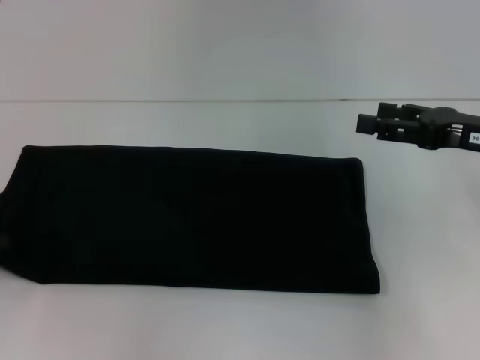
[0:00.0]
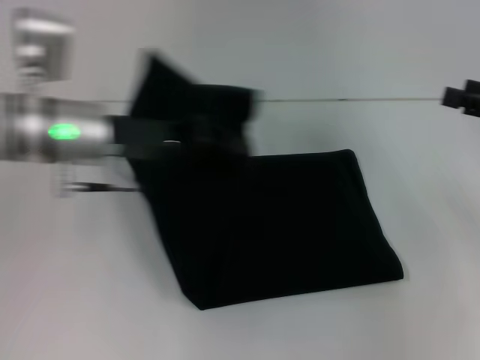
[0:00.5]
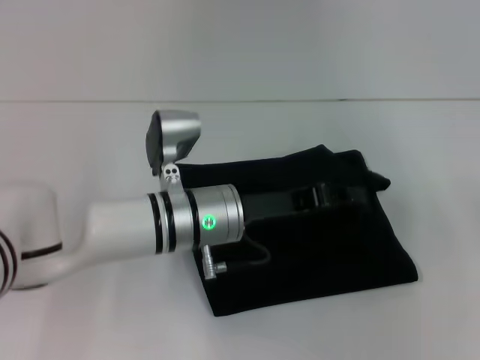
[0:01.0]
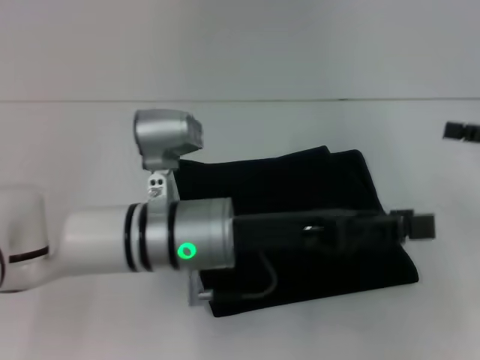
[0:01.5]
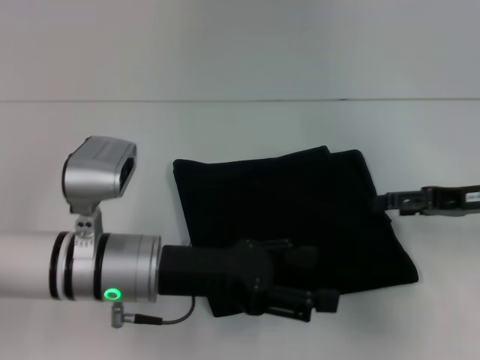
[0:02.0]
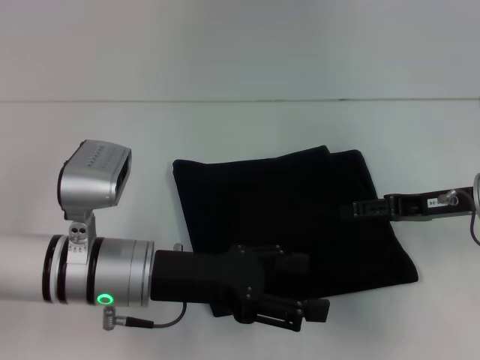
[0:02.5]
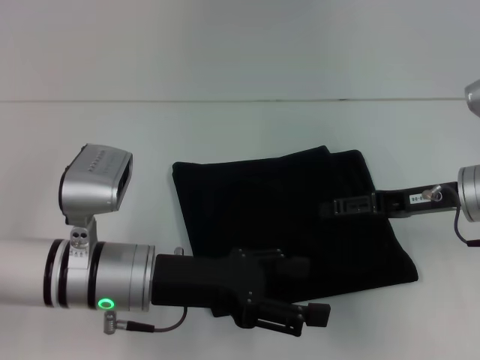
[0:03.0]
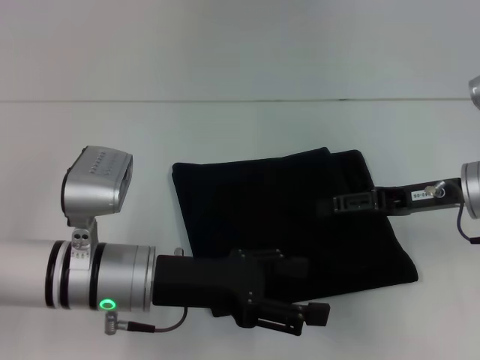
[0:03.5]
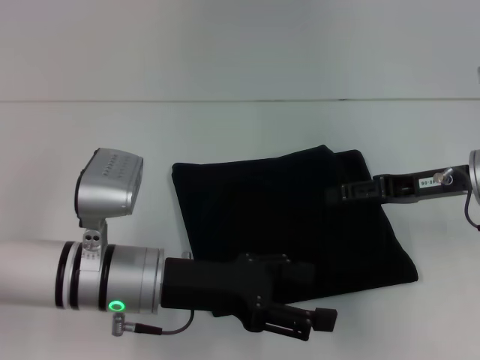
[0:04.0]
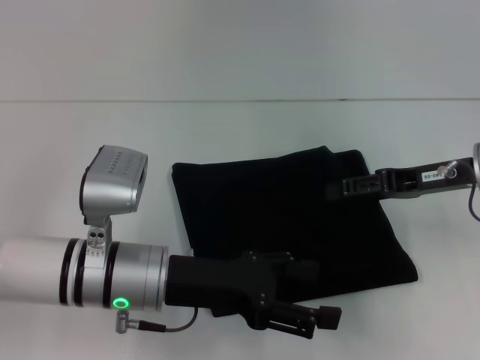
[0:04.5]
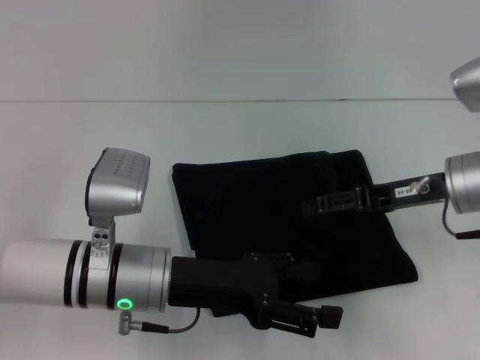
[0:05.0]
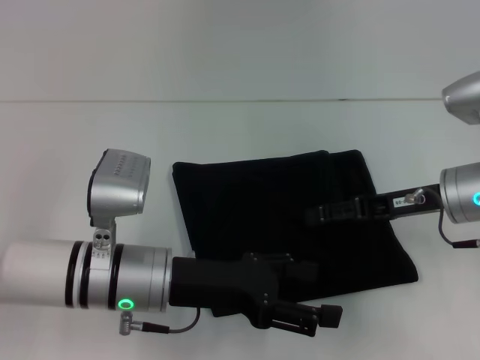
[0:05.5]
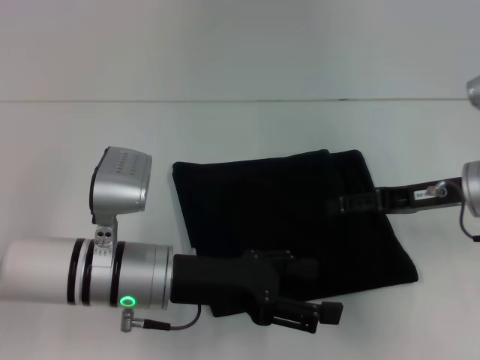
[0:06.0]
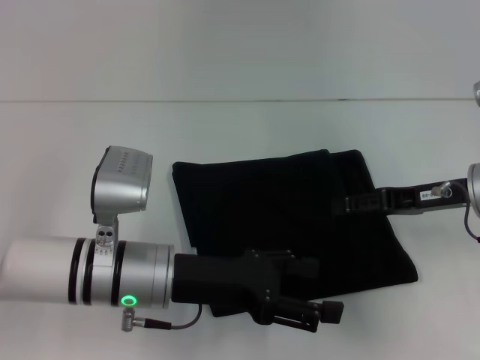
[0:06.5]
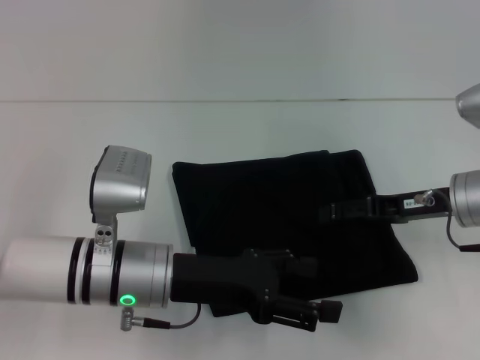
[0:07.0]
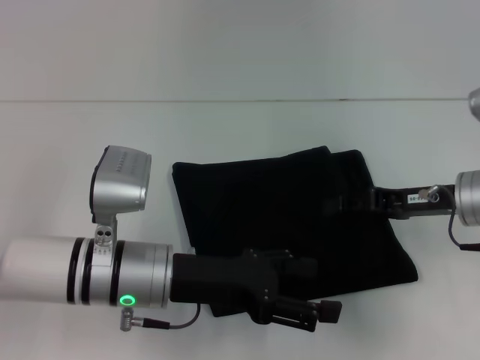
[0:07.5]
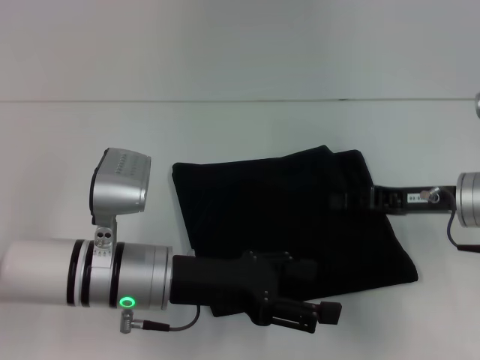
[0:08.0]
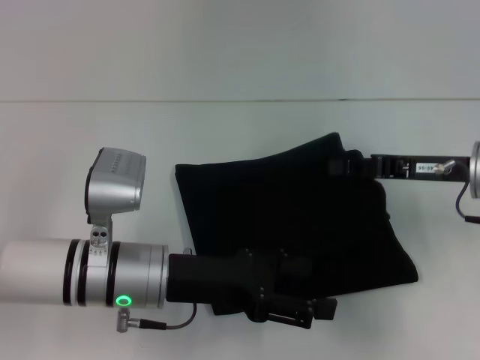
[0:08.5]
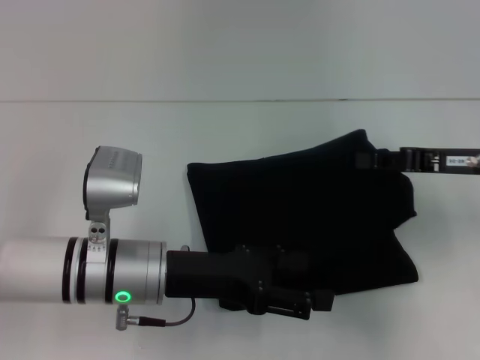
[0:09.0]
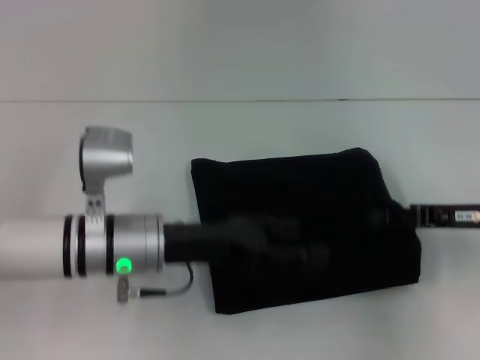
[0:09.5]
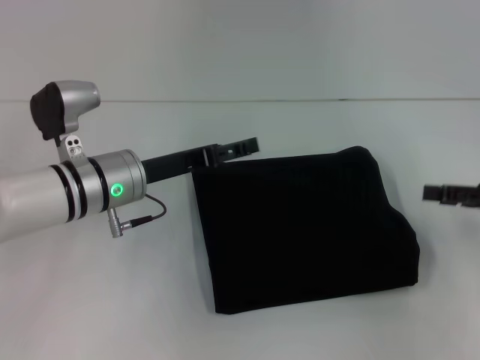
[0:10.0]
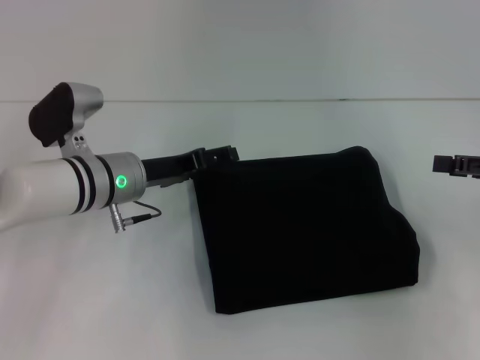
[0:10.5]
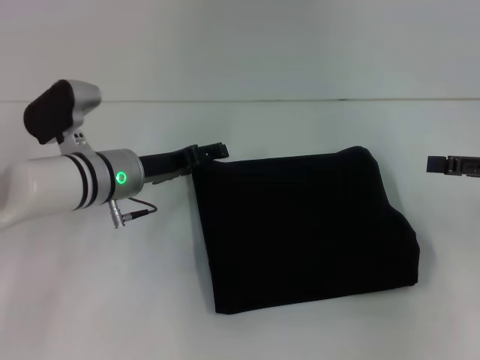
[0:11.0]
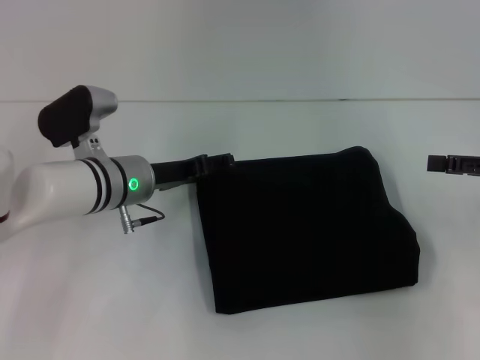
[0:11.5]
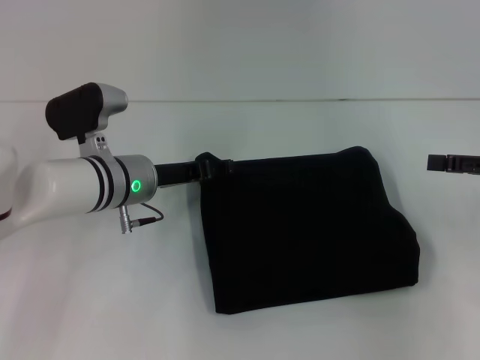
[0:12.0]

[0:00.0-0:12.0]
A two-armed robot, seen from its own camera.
0:00.0 to 0:02.0: The right gripper reaches some 10 cm to the right, then returns. Meanwhile the left gripper heads to the right, covering roughly 25 cm, and opens up.
0:02.0 to 0:04.0: The right gripper shifts by about 5 cm.
0:04.0 to 0:06.0: There are only small adjustments of the grippers.
0:06.0 to 0:08.0: The right gripper closes its fingers.
0:08.0 to 0:10.0: The right gripper goes some 10 cm to the right; the left gripper heads forward, covering roughly 10 cm.
0:10.0 to 0:12.0: The right gripper opens its fingers.

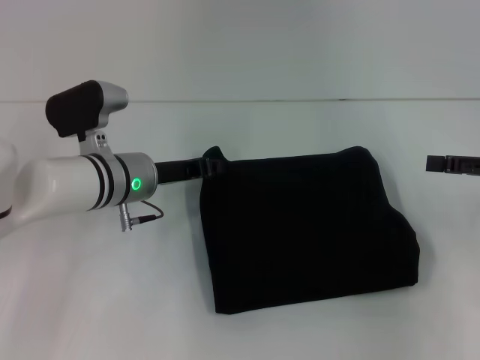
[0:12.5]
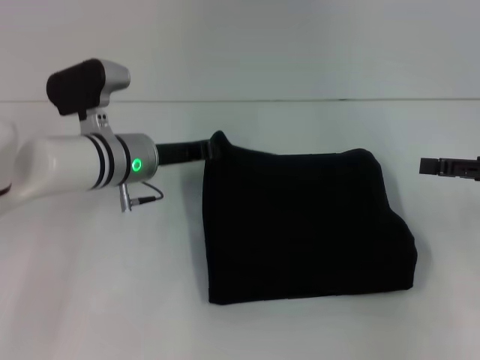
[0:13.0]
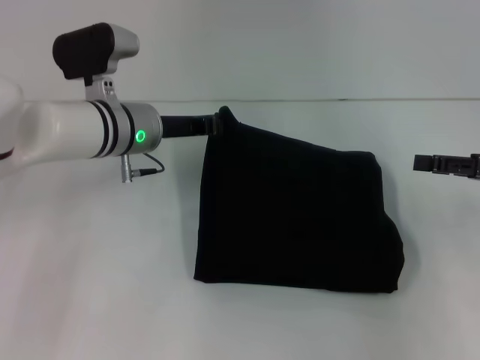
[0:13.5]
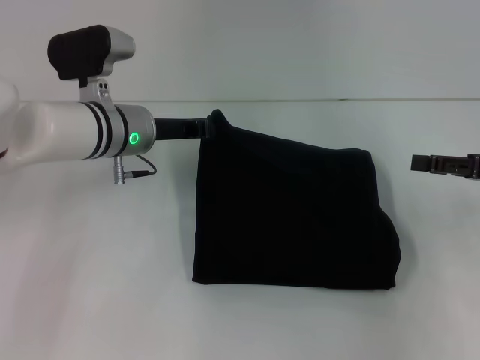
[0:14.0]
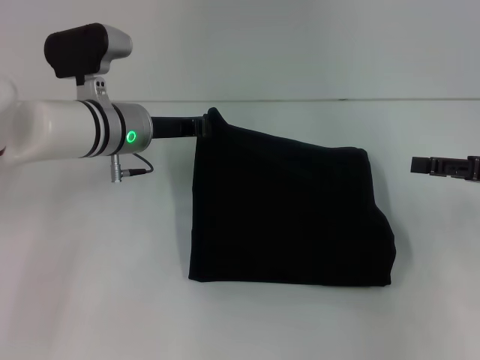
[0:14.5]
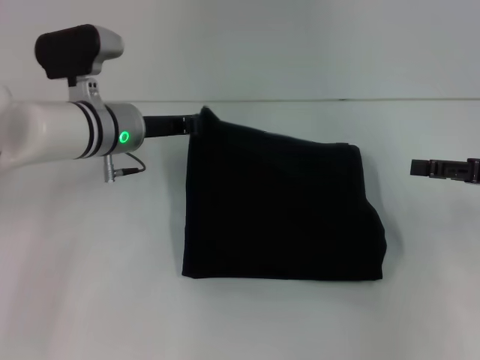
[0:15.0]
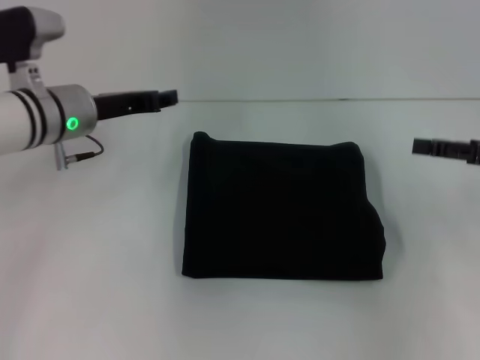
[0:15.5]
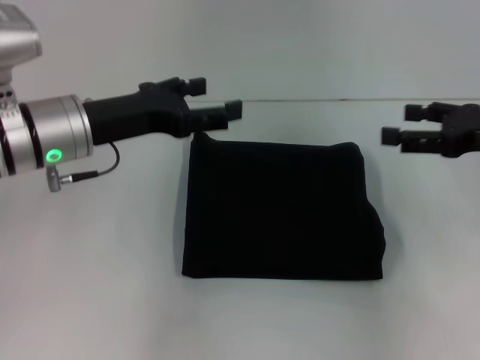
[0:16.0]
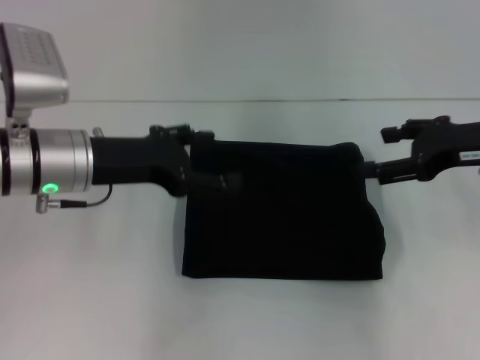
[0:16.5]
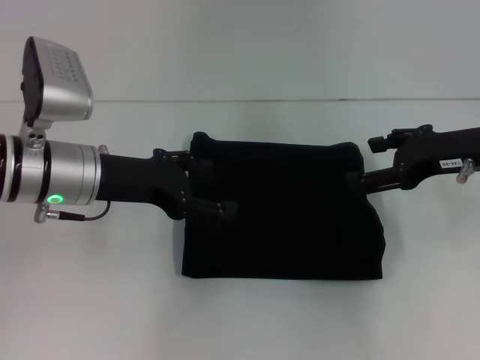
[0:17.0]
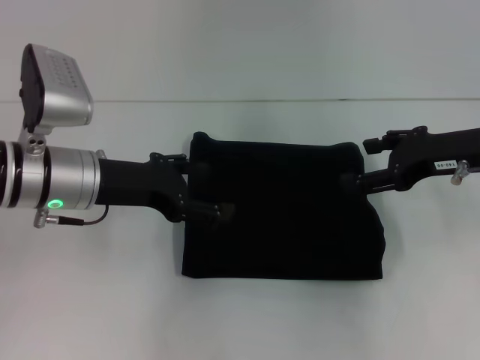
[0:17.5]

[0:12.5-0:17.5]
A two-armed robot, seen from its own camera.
0:12.5 to 0:15.0: The left gripper moves about 5 cm, and closes.
0:15.0 to 0:17.5: The left gripper is displaced backward by about 10 cm, and opens. Meanwhile the right gripper shifts roughly 10 cm to the left.

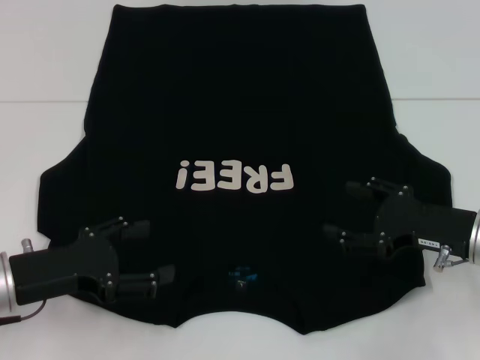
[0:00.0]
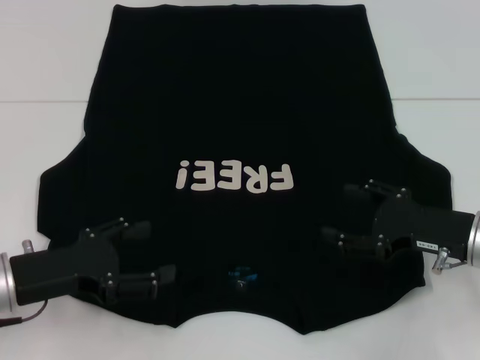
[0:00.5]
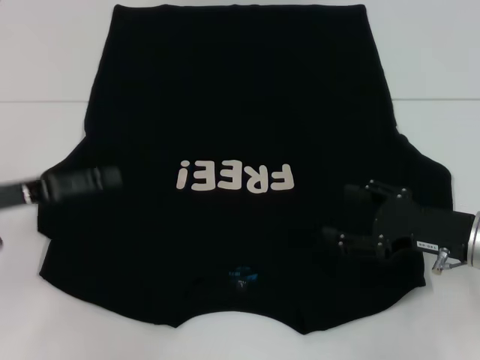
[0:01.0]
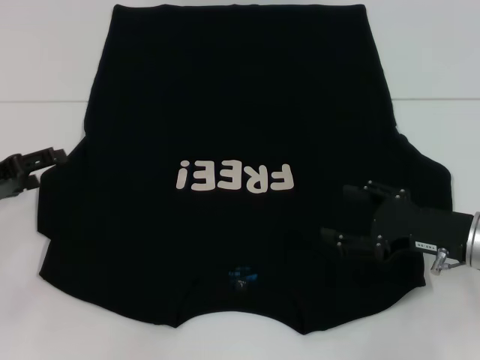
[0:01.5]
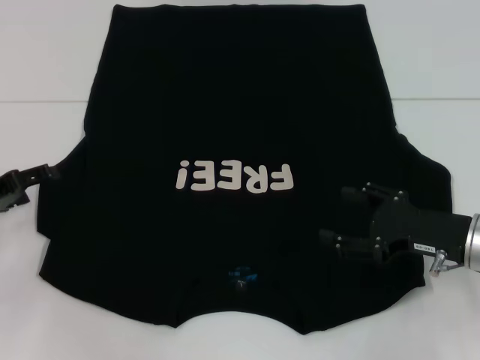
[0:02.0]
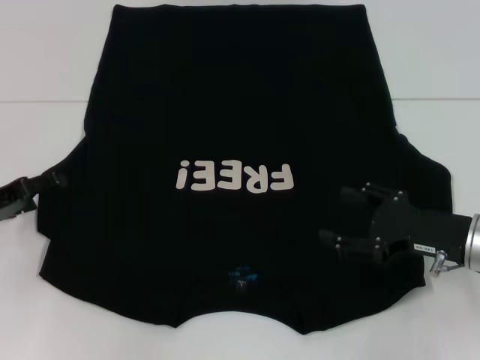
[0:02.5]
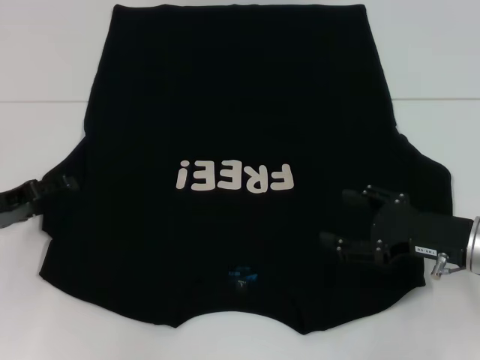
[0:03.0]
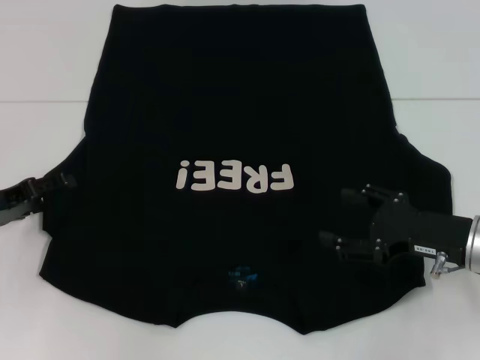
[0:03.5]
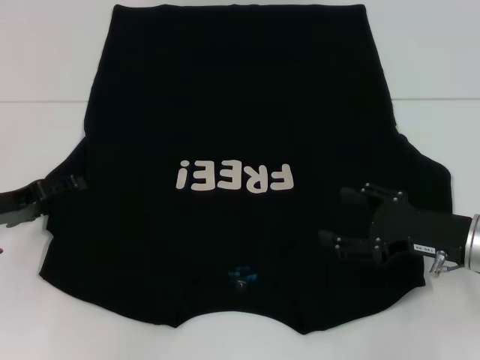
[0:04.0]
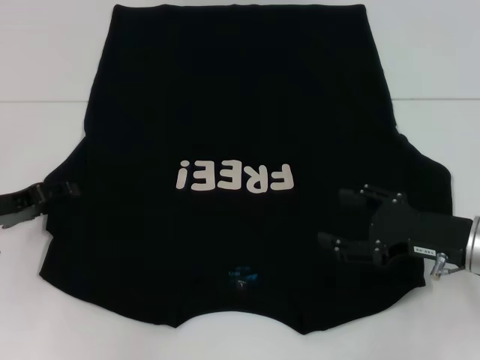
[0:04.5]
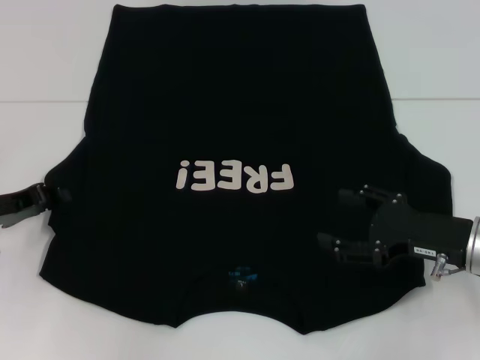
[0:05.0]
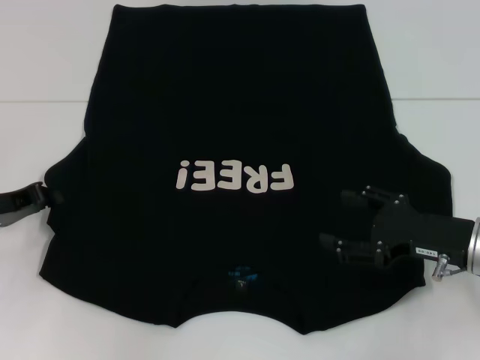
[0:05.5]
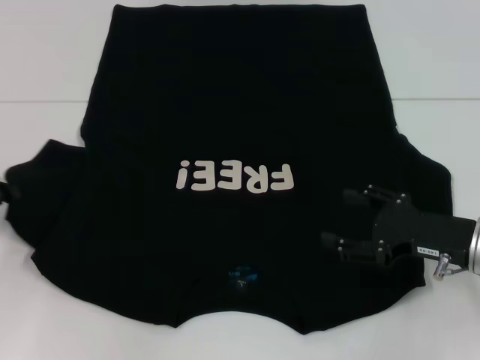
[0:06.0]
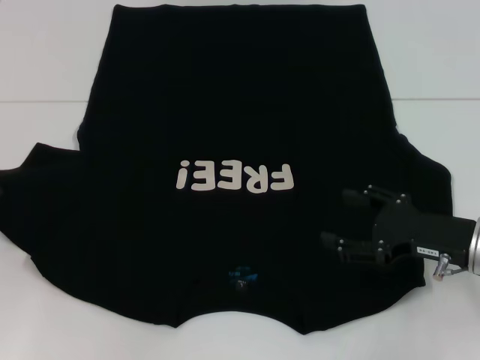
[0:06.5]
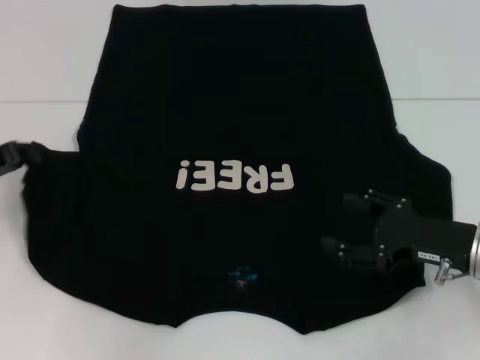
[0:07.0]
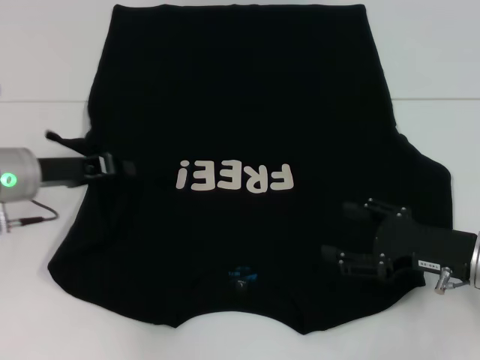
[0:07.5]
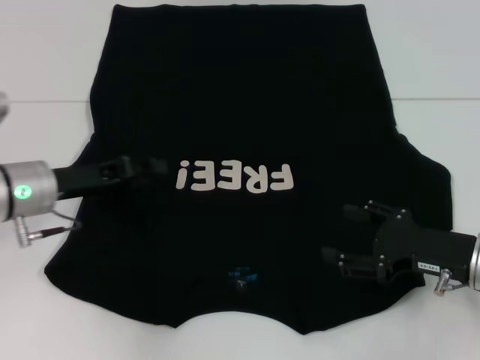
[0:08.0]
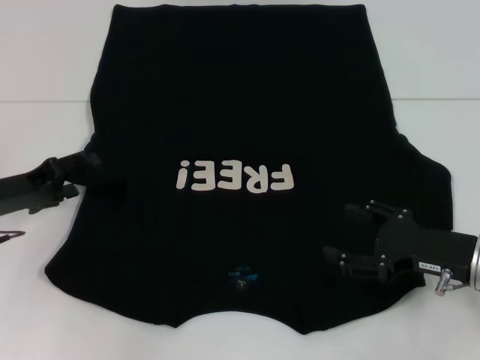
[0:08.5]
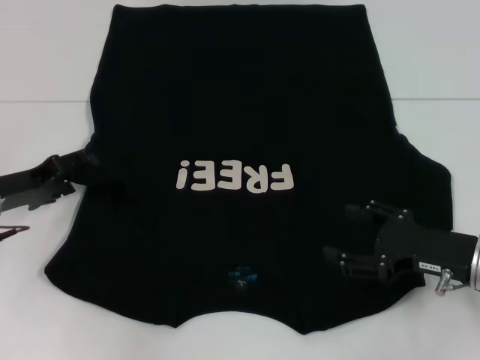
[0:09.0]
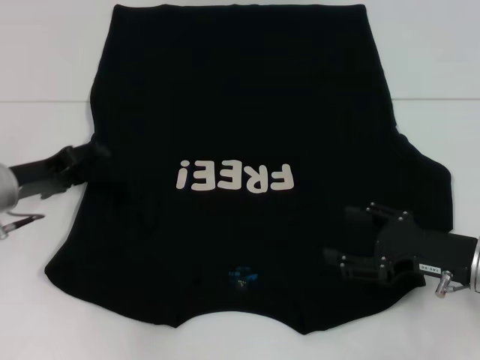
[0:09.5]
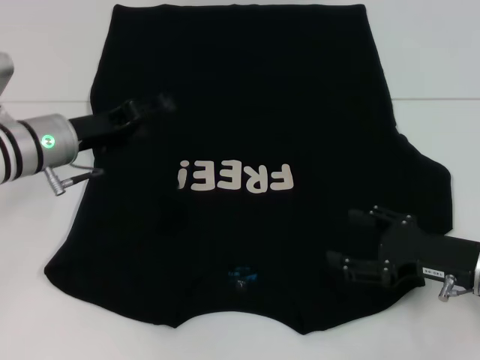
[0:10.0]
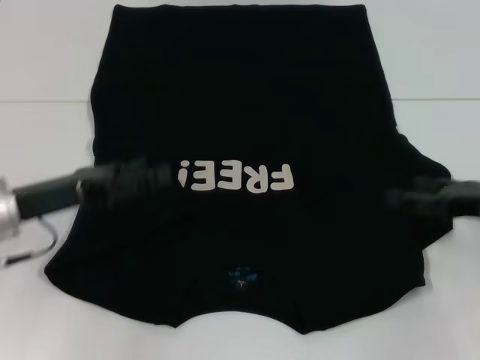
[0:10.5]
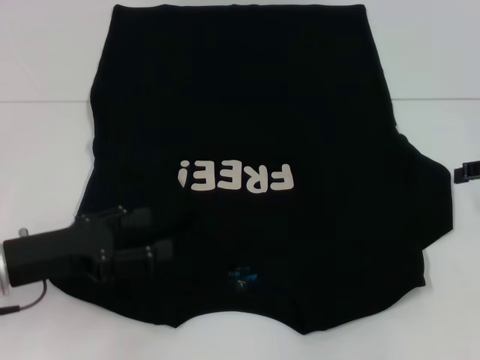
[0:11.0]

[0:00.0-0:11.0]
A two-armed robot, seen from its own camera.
Step, 0:00.0 to 0:10.0: Fold the bottom left sleeve with your left hand.
0:00.0 to 0:02.0: The left gripper shifts some 10 cm to the left and forward.
0:02.0 to 0:03.5: There are only small adjustments of the grippers.
0:03.5 to 0:05.5: The left gripper closes.
0:05.5 to 0:07.5: The left gripper shifts about 5 cm to the right.
0:07.5 to 0:09.0: The left gripper moves approximately 5 cm, and opens.
0:09.0 to 0:11.0: The left gripper travels backward by about 10 cm. Meanwhile the right gripper is displaced upward, to the right and forward by roughly 15 cm.
